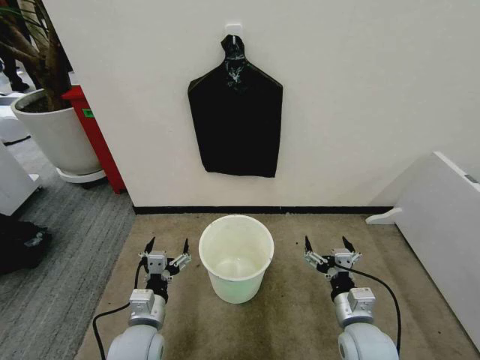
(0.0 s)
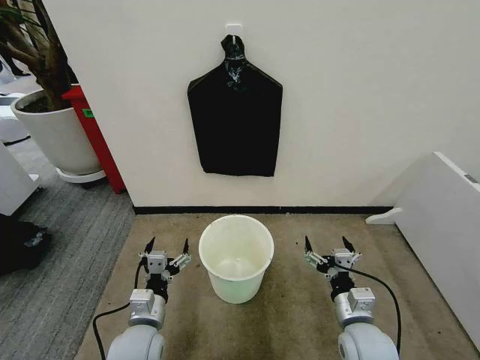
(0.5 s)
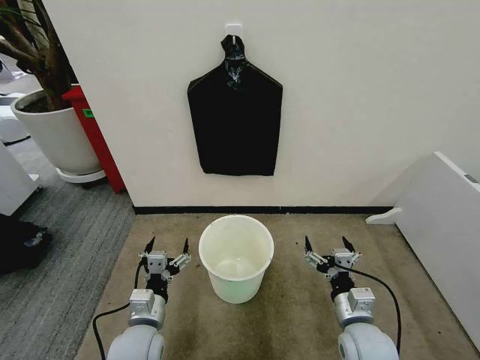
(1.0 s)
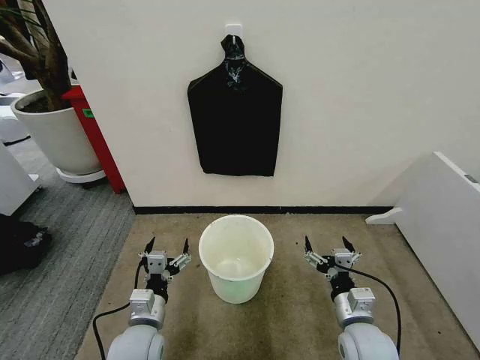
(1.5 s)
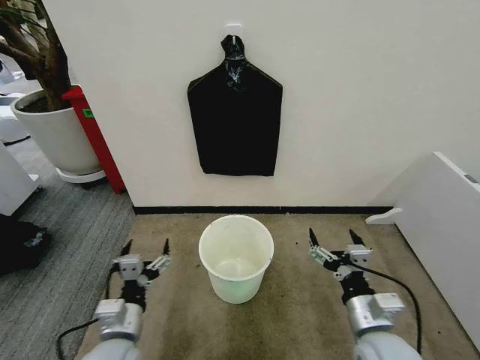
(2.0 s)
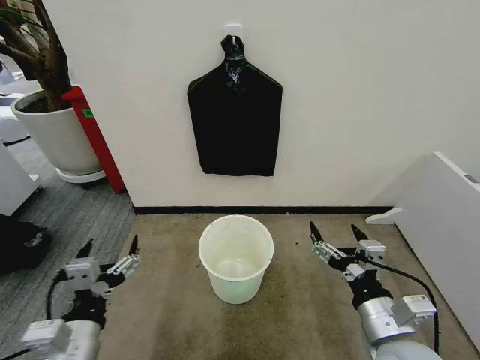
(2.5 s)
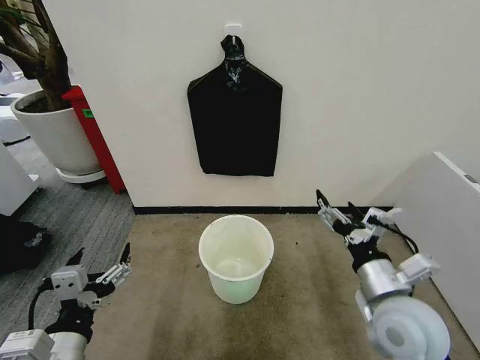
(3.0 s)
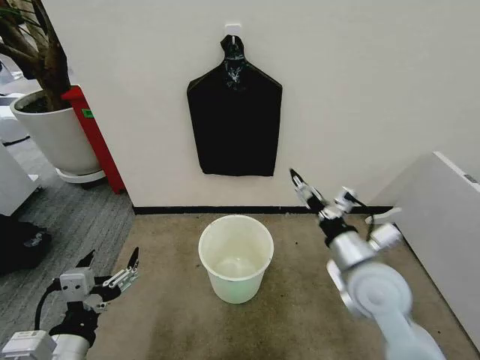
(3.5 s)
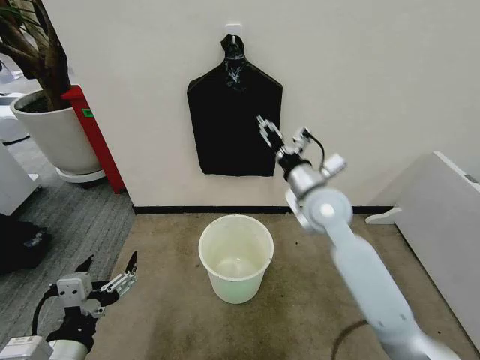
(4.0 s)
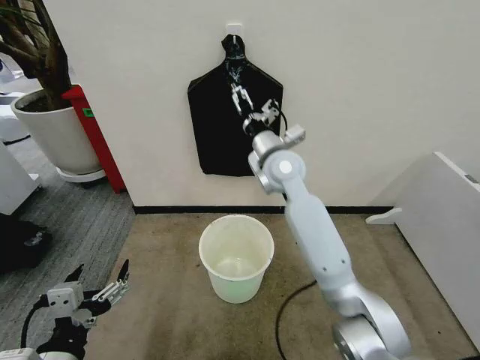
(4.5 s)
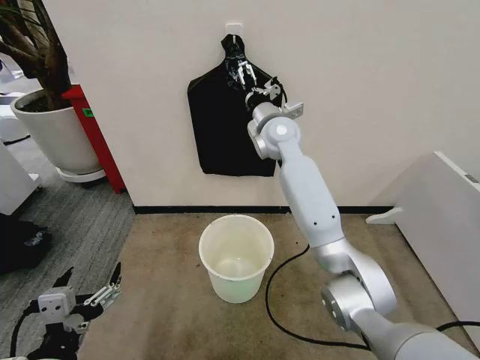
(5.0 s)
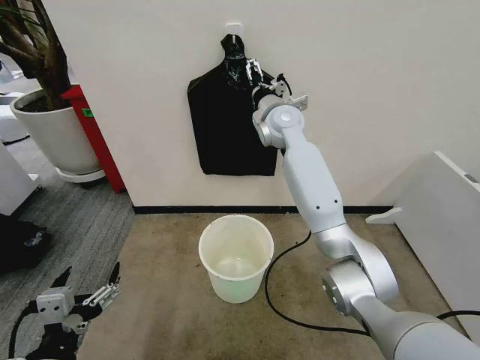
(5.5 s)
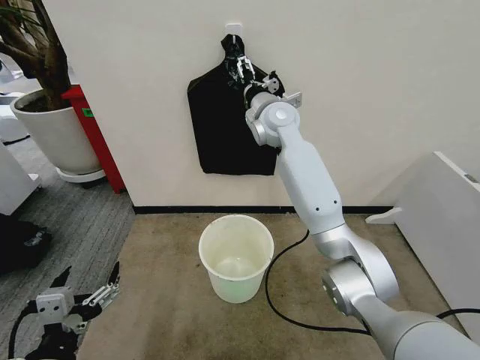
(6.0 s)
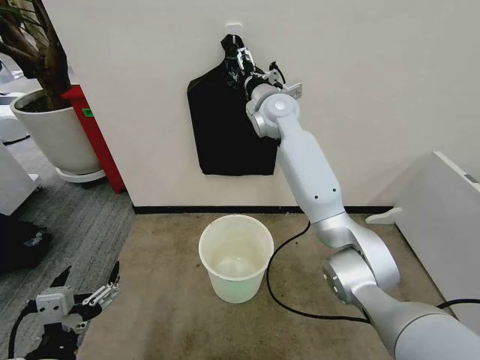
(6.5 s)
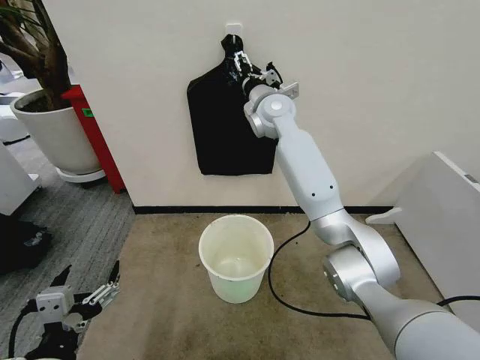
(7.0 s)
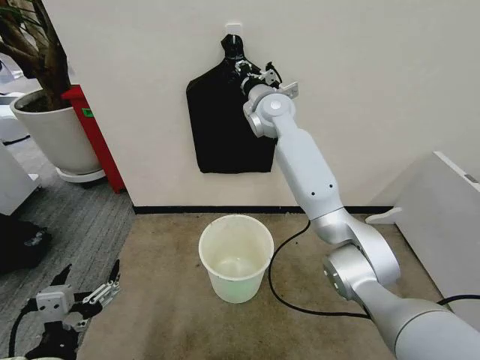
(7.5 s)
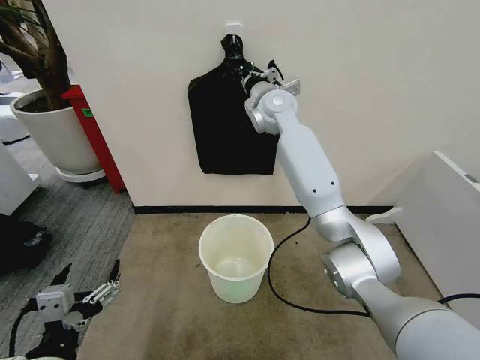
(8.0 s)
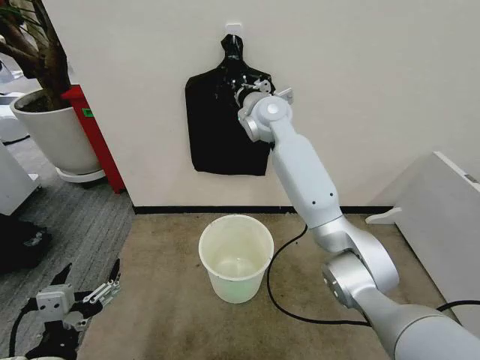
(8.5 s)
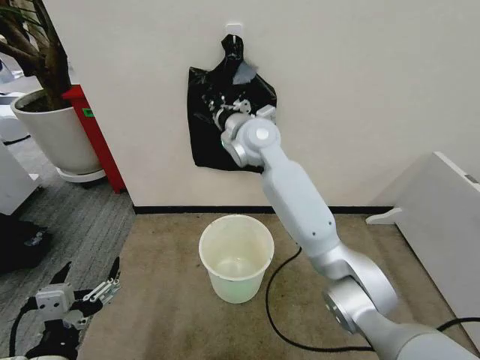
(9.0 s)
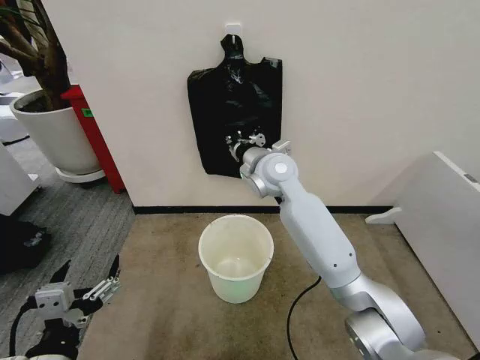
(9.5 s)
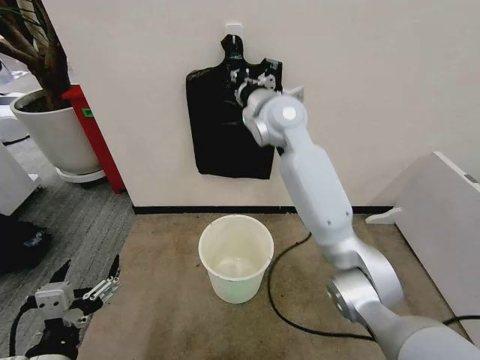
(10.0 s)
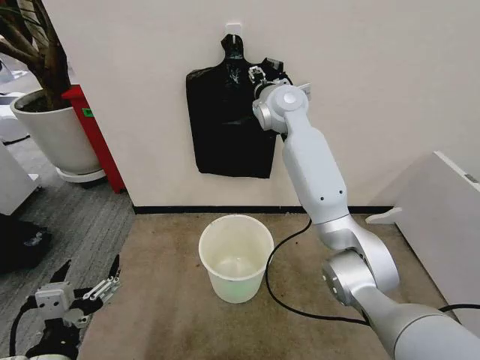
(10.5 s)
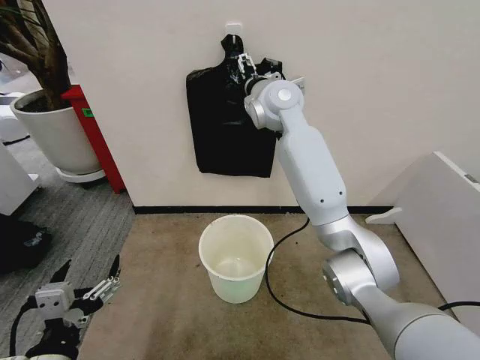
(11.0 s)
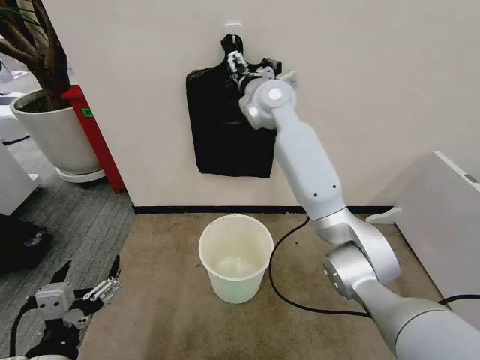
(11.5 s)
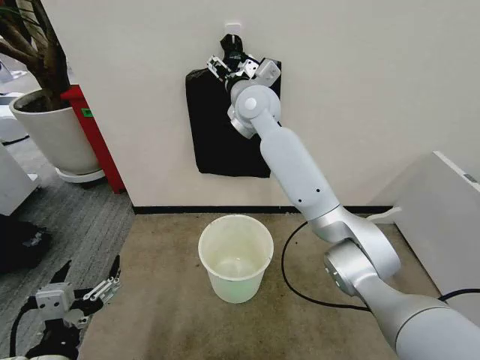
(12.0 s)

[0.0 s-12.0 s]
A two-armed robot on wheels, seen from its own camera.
Task of the whole recording: Place the garbage bag over the trash bin.
2.0 to 4.0 s: The right gripper heads forward and upward, covering roughly 25 cm. The left gripper travels upward and backward by roughly 15 cm.
4.0 to 6.0 s: The right gripper shifts some 20 cm forward, upward and to the left.
6.0 to 8.0 s: The right gripper closes.
8.0 to 10.0 s: The right gripper is displaced backward by roughly 10 cm.
10.0 to 12.0 s: The right gripper shifts by roughly 5 cm, and opens.

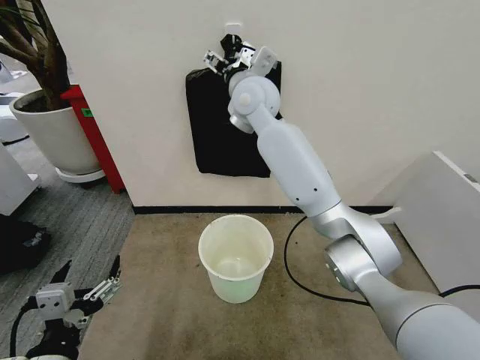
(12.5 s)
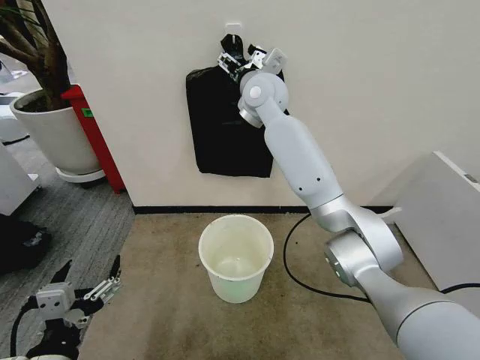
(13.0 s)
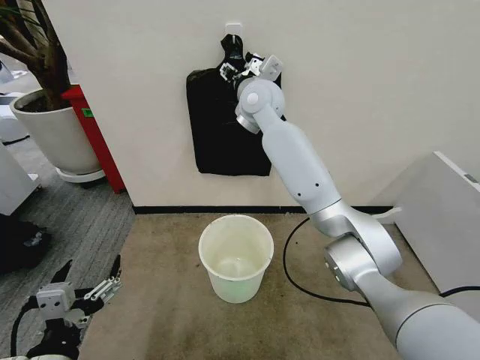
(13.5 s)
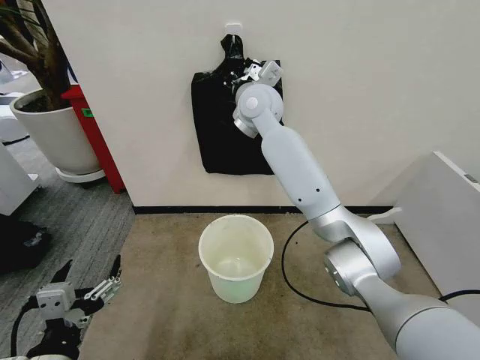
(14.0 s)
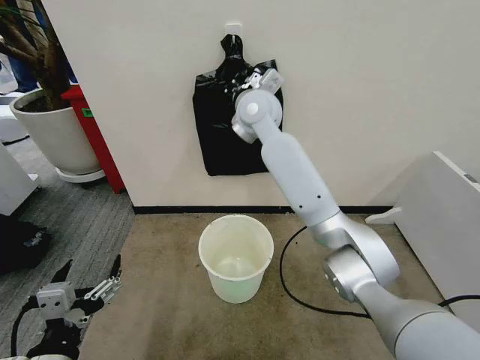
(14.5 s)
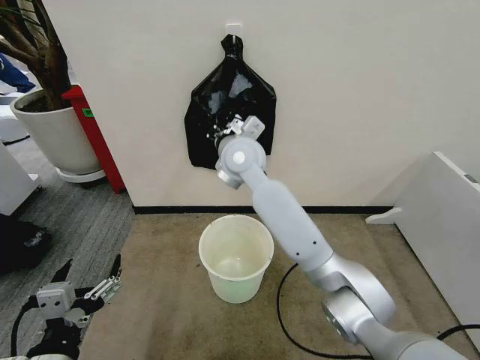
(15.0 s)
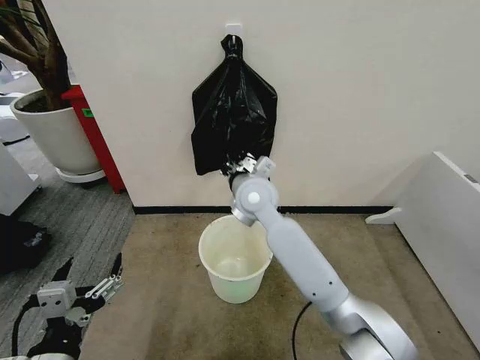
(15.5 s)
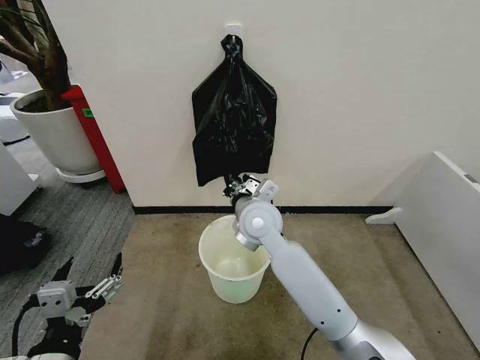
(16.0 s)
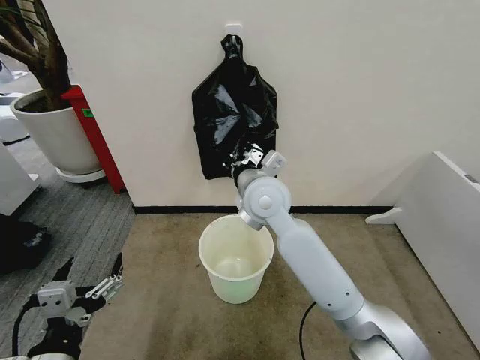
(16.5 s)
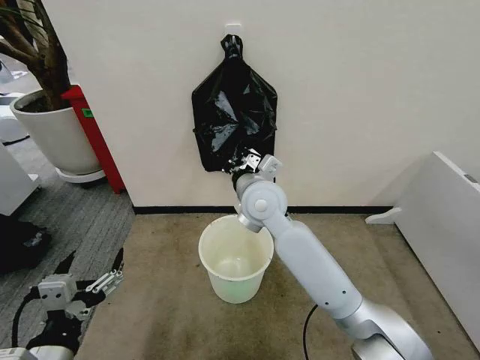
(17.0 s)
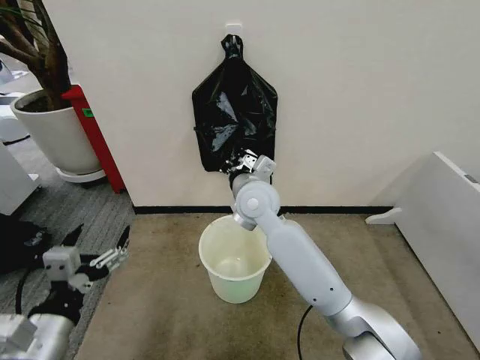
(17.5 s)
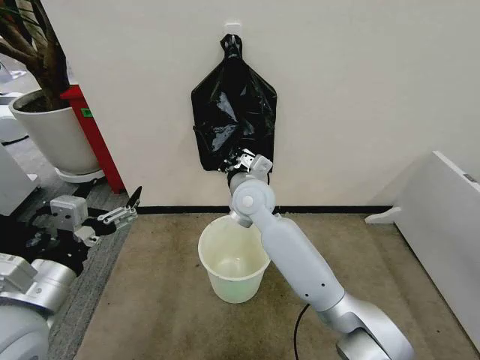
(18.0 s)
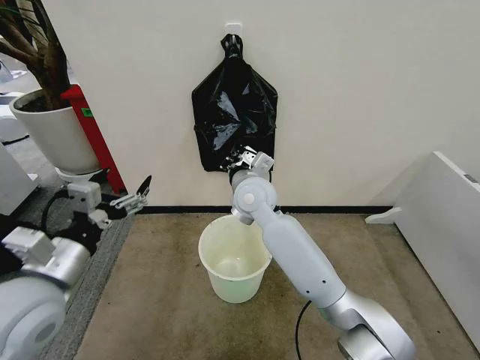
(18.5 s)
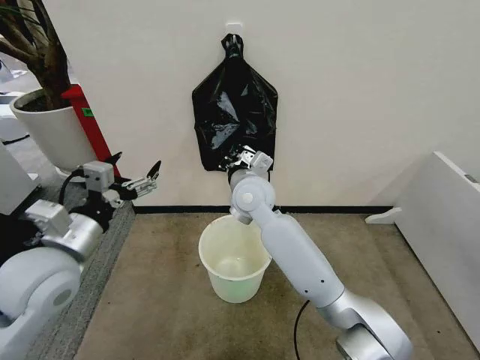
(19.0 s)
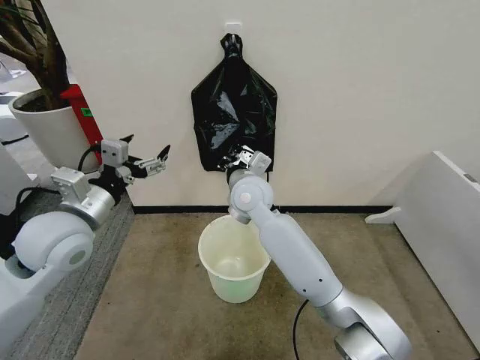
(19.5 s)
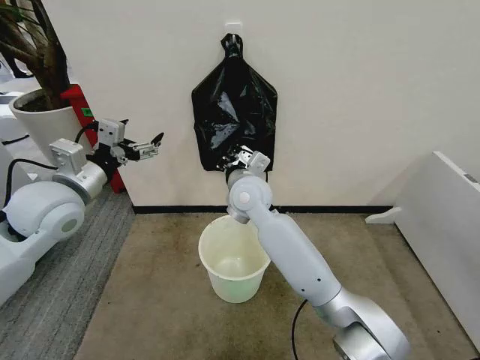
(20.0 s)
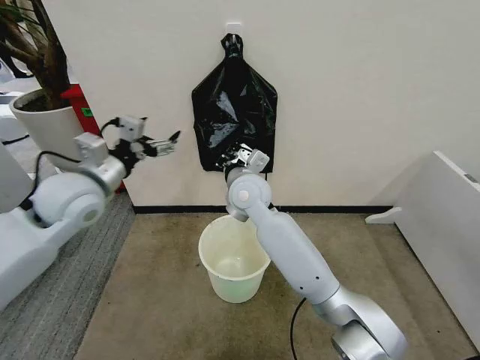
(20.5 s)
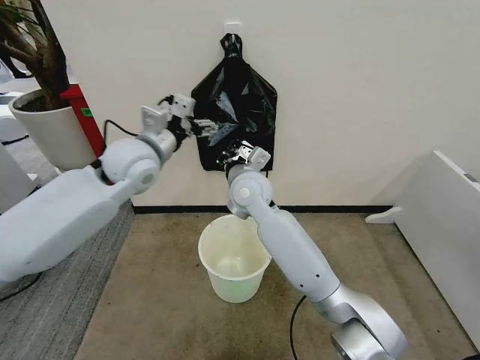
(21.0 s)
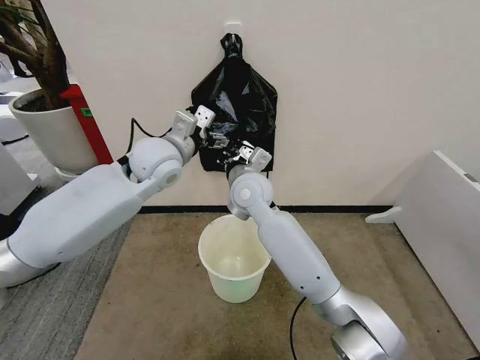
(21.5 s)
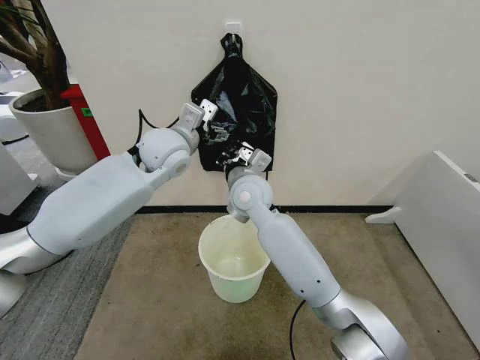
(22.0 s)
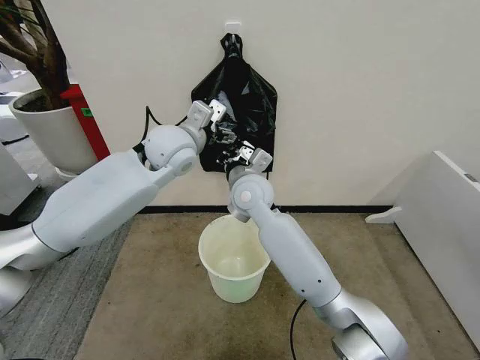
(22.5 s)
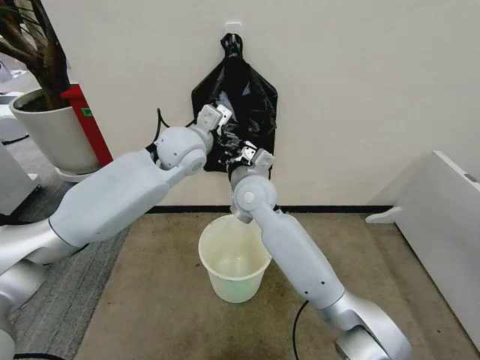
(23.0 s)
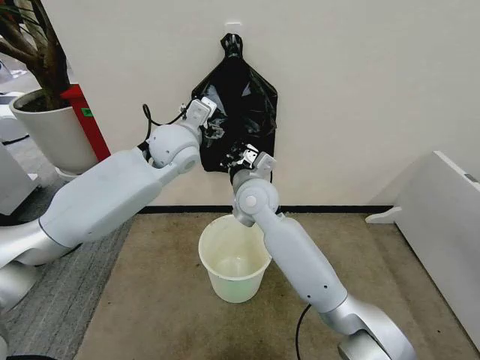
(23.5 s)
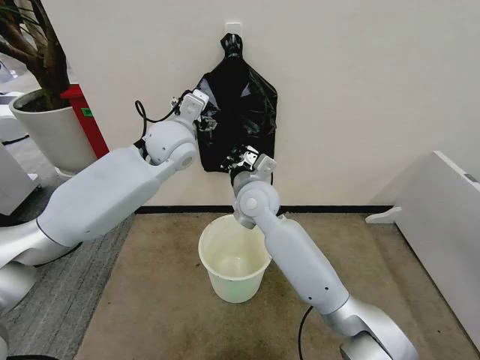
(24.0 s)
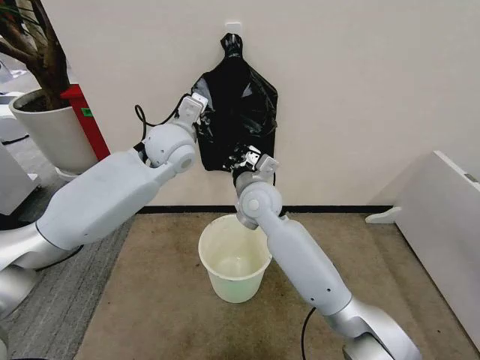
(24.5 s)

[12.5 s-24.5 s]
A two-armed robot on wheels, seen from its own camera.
Task of the whole recording: Place the garbage bag over the trash bin.
12.5 to 14.5 s: The right gripper closes.
14.5 to 16.5 s: The right gripper shifts some 20 cm backward and downward.
16.5 to 18.5 s: The left gripper heads forward and upward, covering roughly 15 cm; the right gripper ends up approximately 5 cm from where it was.
18.5 to 20.5 s: The left gripper moves forward, approximately 20 cm.
20.5 to 22.5 s: The left gripper shifts some 20 cm to the right and forward.
22.5 to 24.5 s: The left gripper closes its fingers.

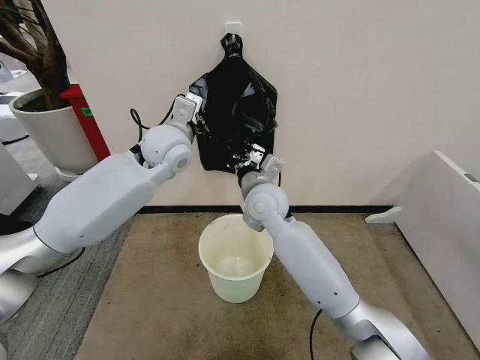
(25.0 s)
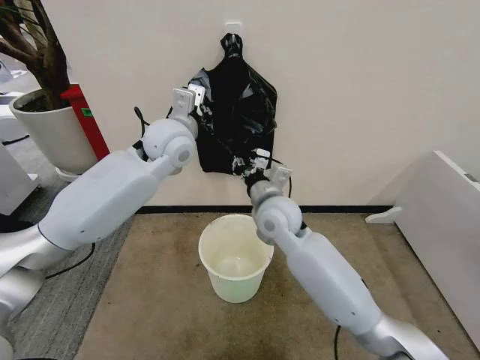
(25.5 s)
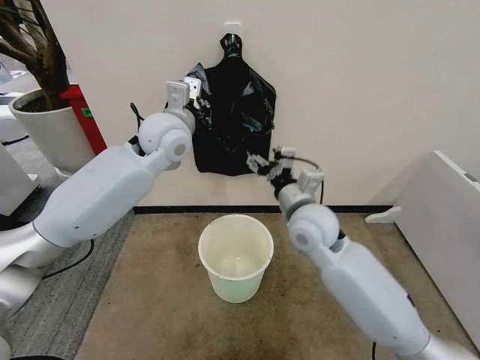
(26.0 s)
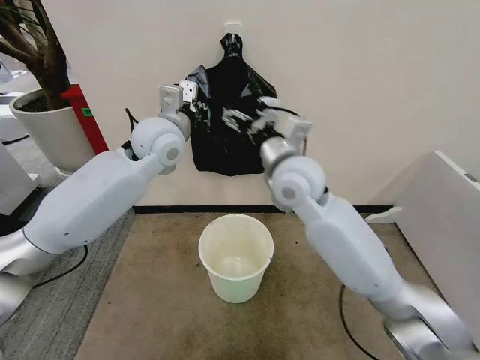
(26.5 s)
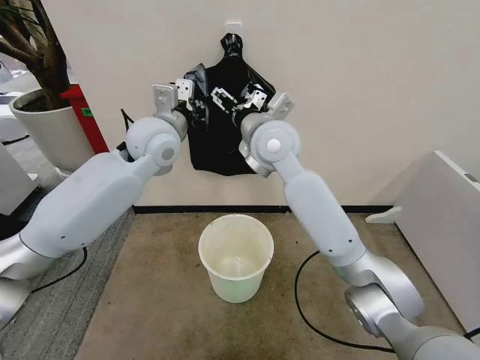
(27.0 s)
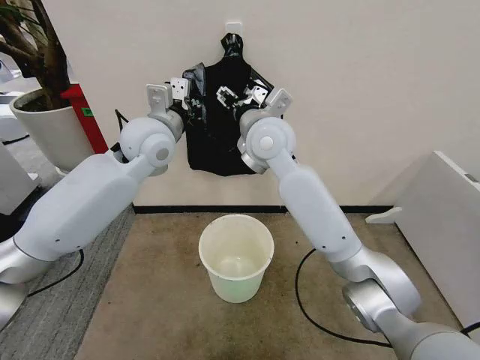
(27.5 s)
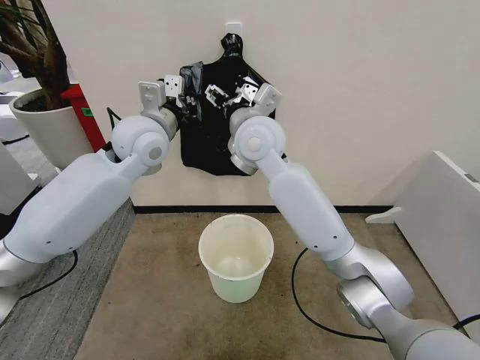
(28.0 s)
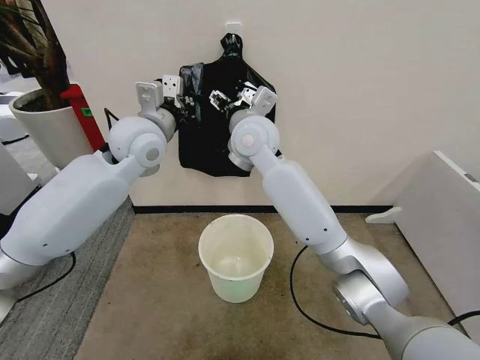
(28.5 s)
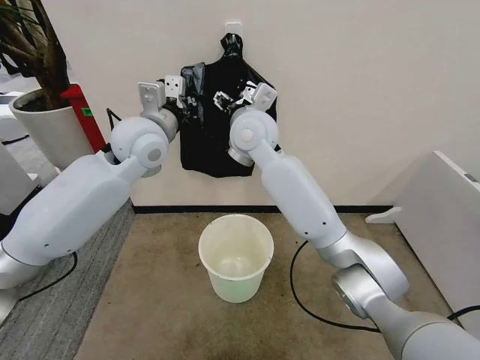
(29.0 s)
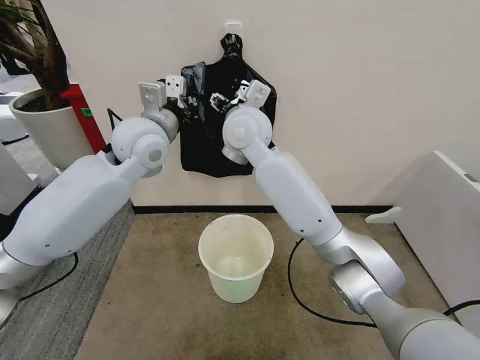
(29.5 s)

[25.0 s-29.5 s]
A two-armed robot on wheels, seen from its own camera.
Task of the whole recording: Place the garbage bag over the trash bin.
25.0 to 27.0 s: The right gripper shifts roughly 15 cm upward, and opens.
27.0 to 29.5 s: The right gripper moves to the left, some 5 cm.
